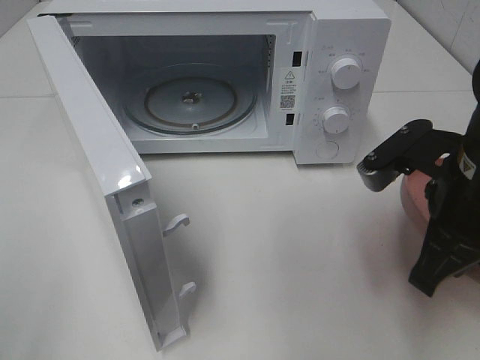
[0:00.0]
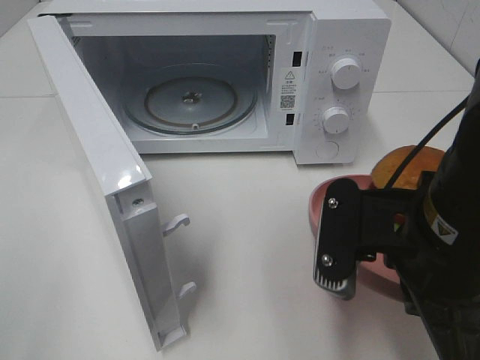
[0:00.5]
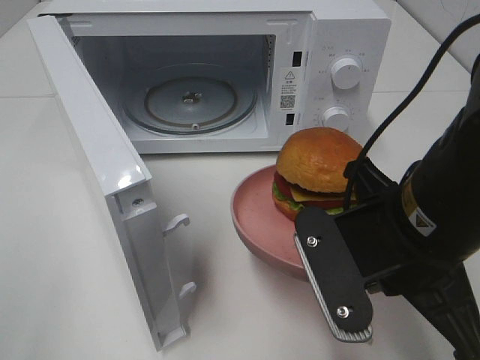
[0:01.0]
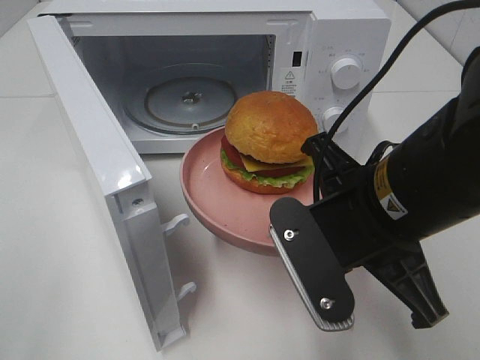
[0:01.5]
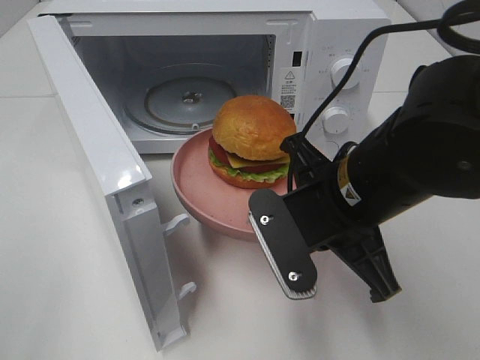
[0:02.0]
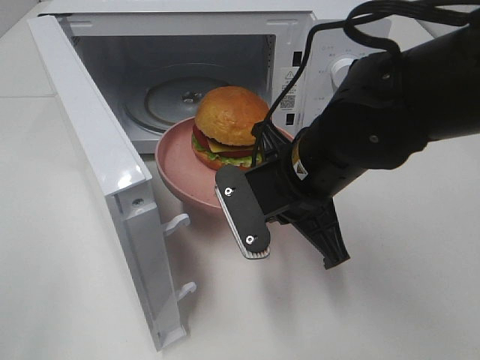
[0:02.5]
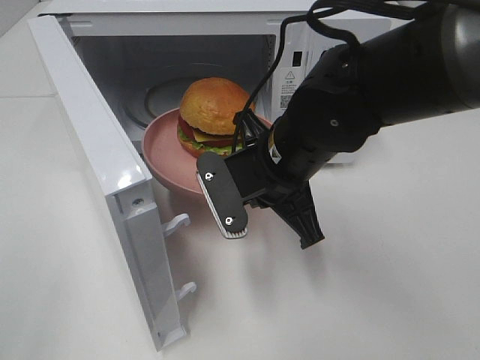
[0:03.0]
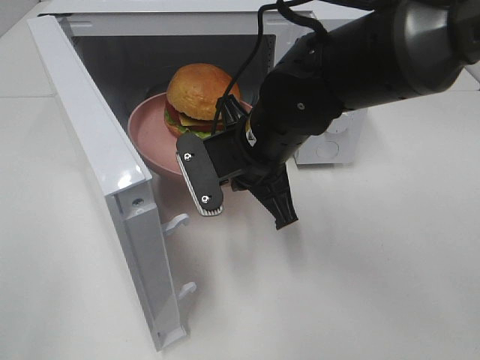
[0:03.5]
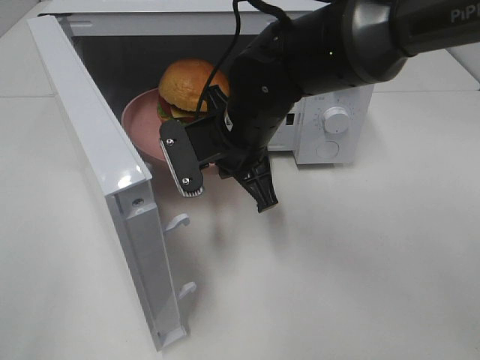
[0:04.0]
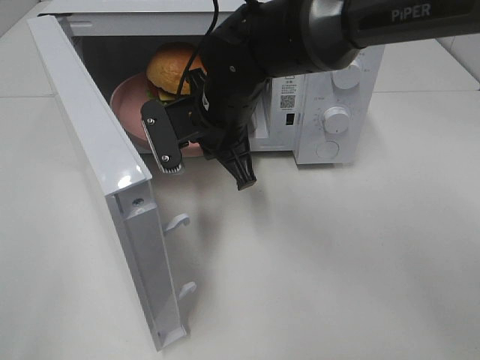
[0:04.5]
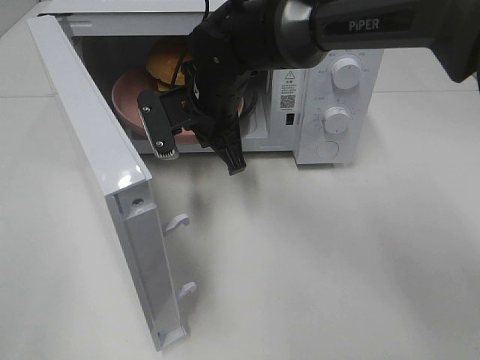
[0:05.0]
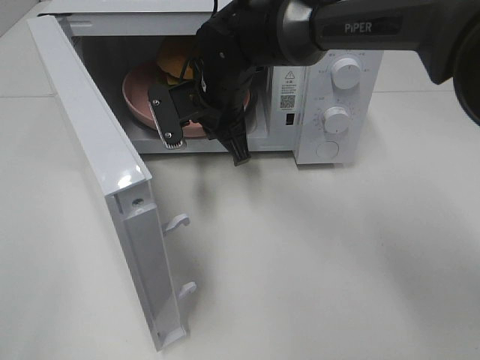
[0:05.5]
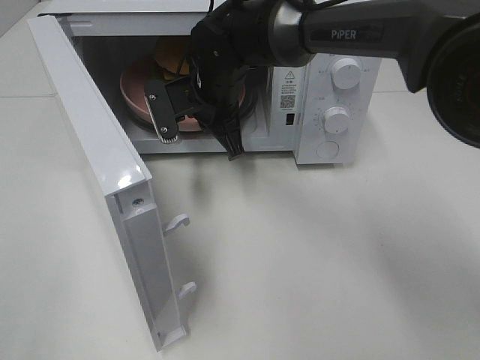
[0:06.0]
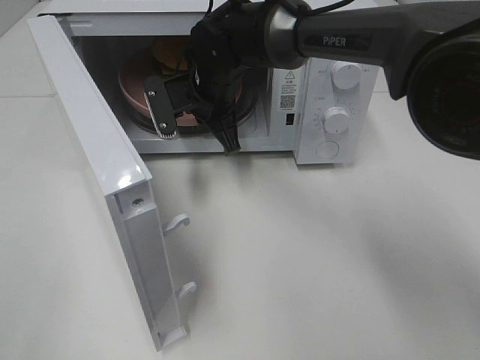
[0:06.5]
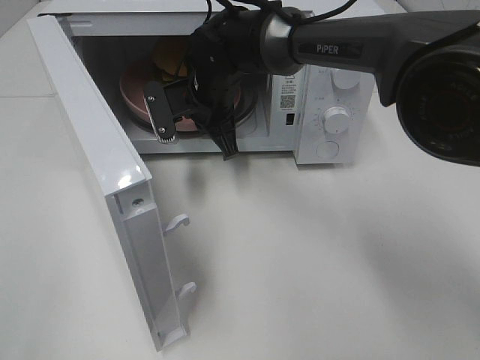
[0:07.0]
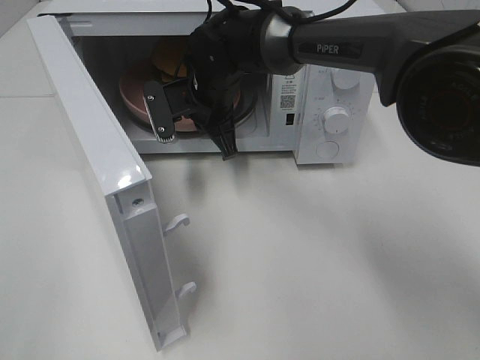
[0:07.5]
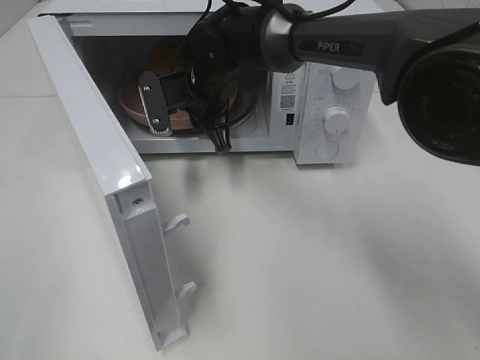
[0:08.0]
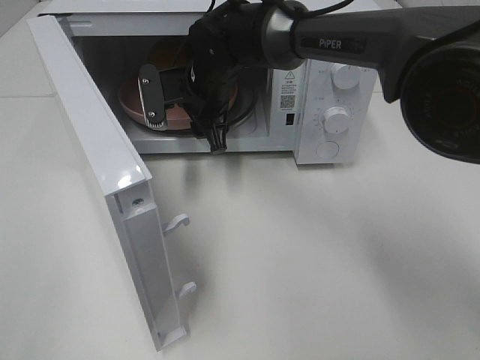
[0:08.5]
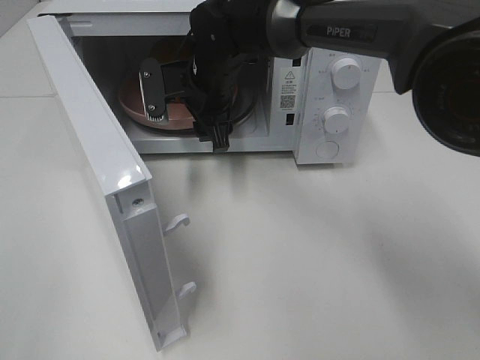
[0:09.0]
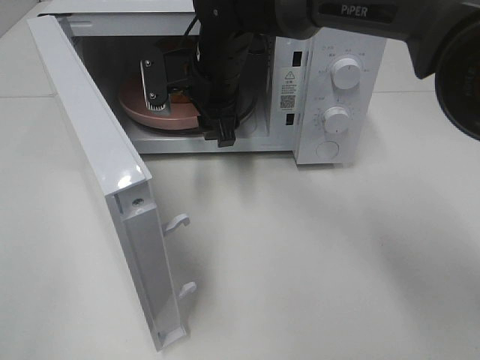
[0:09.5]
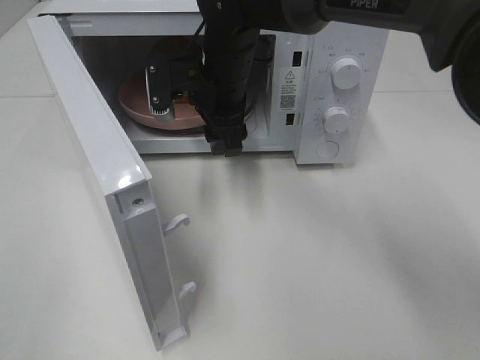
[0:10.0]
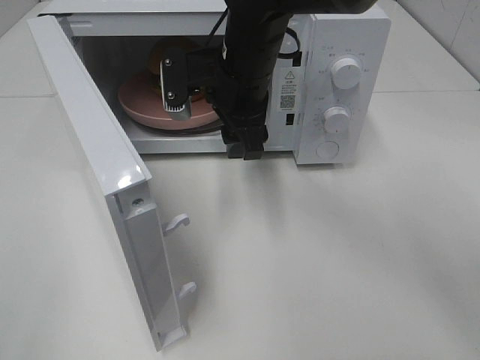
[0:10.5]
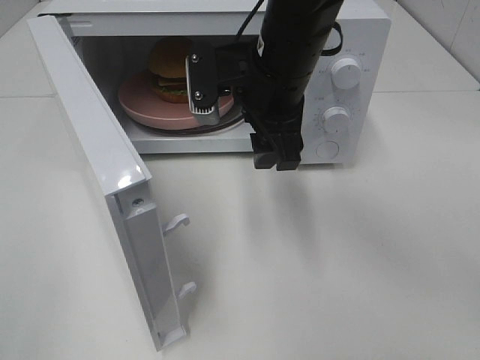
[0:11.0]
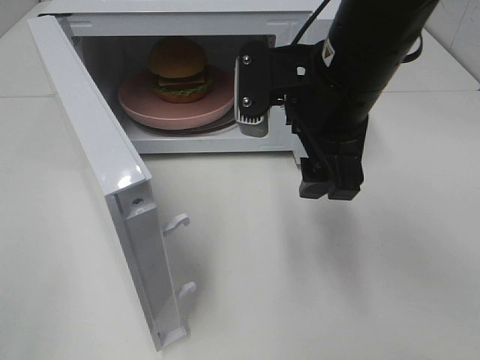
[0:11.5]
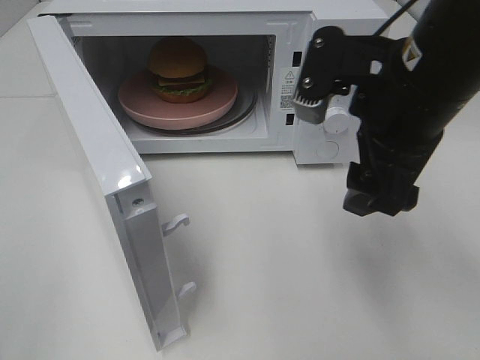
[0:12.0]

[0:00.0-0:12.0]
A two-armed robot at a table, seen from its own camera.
Task of the whole recording: Heat the burger.
Step, 0.0 to 8.0 s: Right hand: place the plate in the microwave.
0.0 to 2.0 s: The right gripper moves to the left, some 10 cm.
2.0 to 4.0 s: The right gripper heads forward and to the left, covering roughly 15 cm.
4.0 to 6.0 s: The right gripper is displaced forward by about 10 cm.
6.0 to 8.0 s: The grippers move only a little.
8.0 to 10.0 s: The right gripper changes place by some 5 cm.
10.0 to 12.0 s: The right gripper shifts some 25 cm to the right, backward and upward.

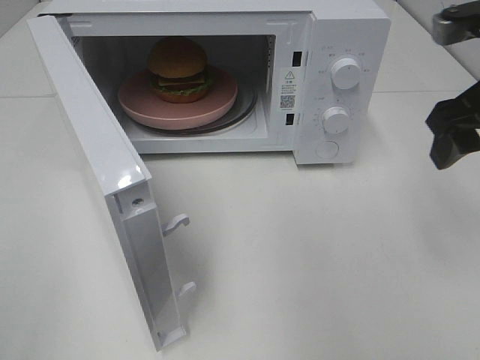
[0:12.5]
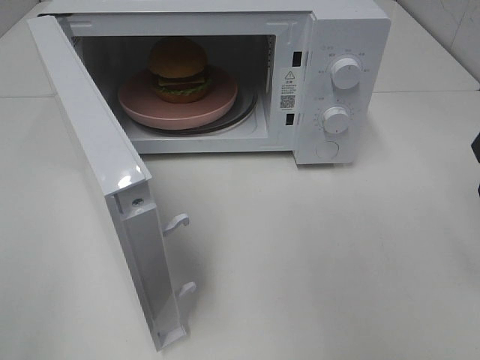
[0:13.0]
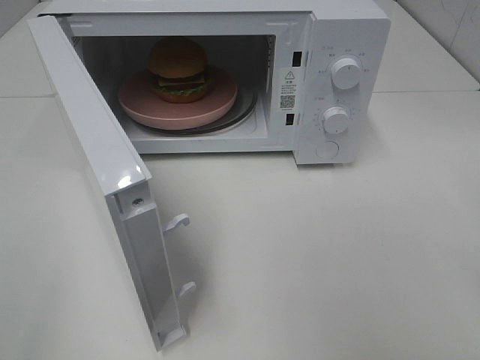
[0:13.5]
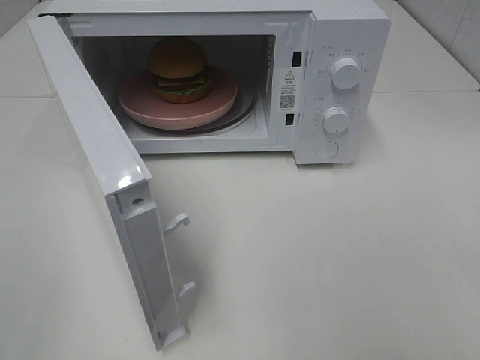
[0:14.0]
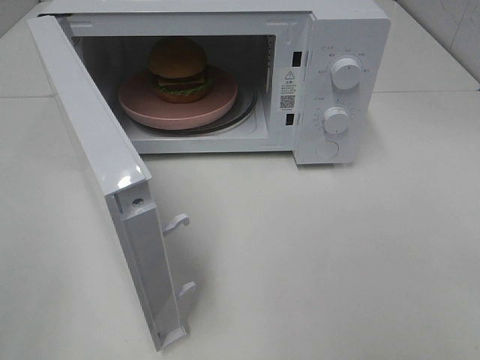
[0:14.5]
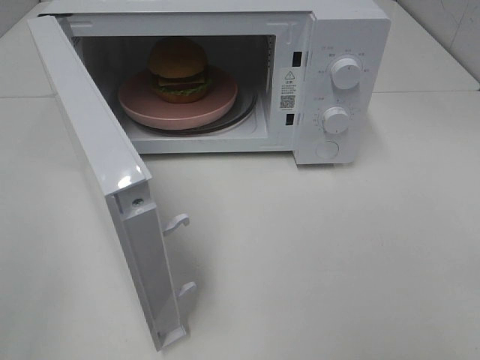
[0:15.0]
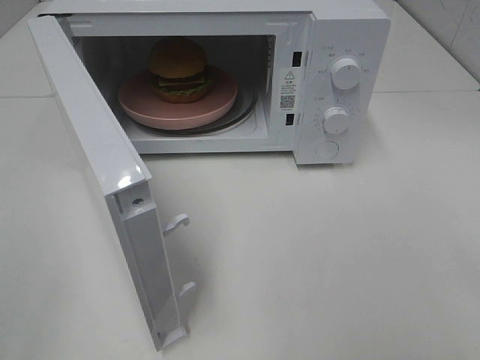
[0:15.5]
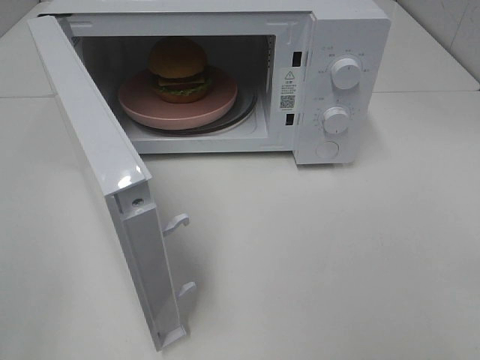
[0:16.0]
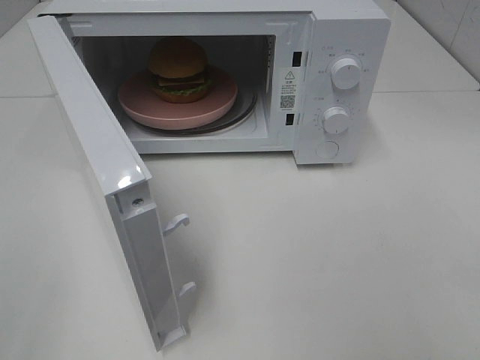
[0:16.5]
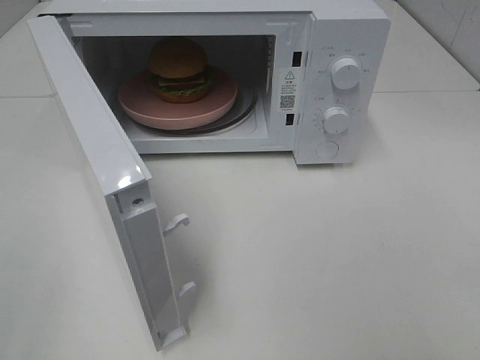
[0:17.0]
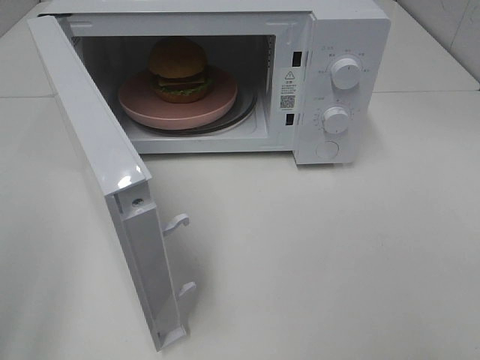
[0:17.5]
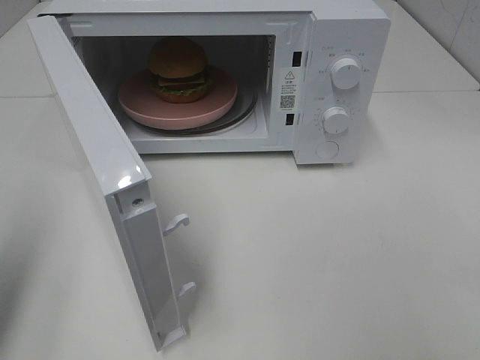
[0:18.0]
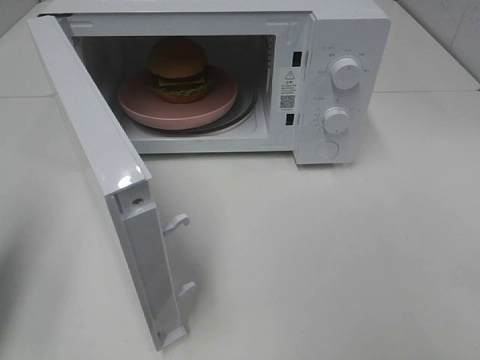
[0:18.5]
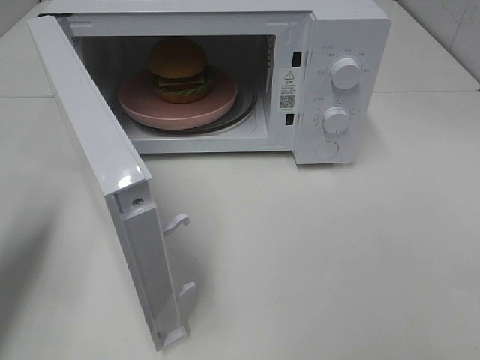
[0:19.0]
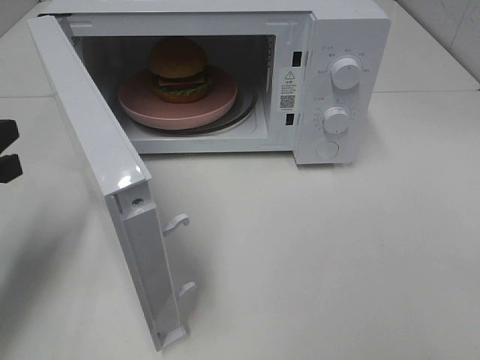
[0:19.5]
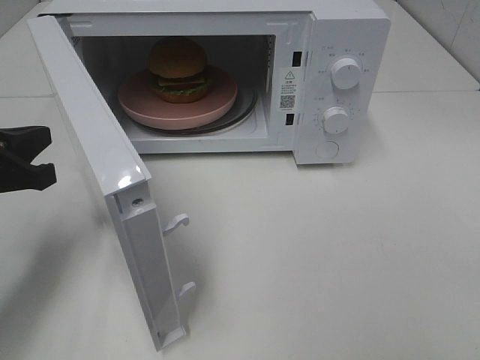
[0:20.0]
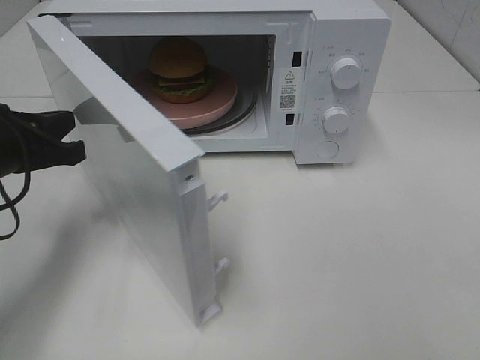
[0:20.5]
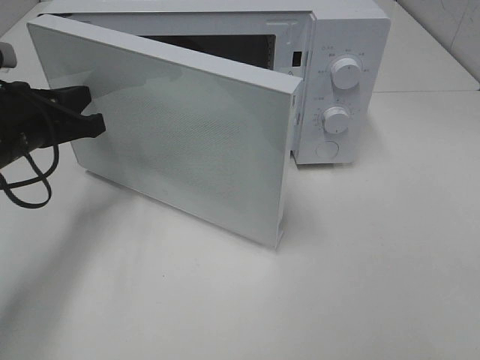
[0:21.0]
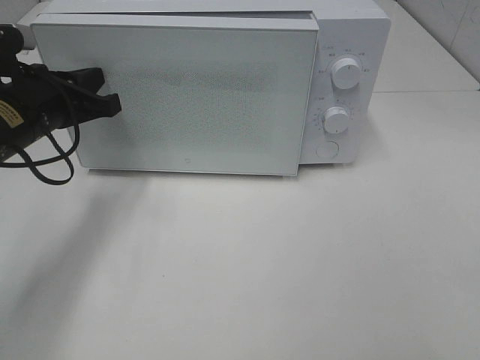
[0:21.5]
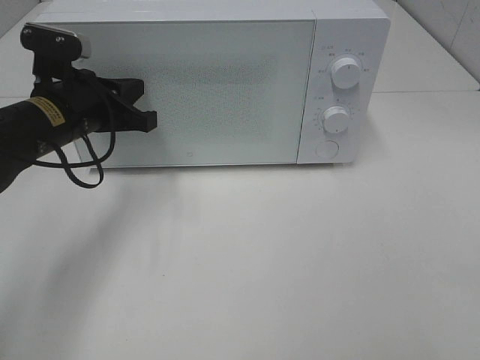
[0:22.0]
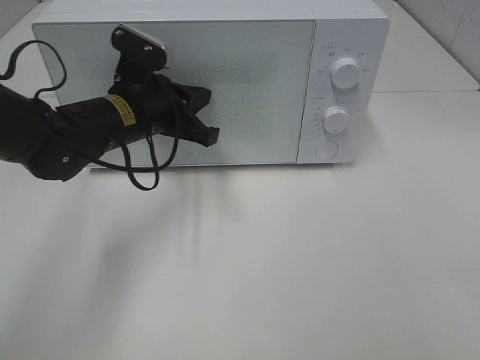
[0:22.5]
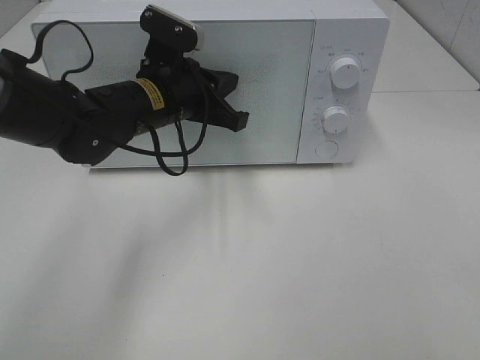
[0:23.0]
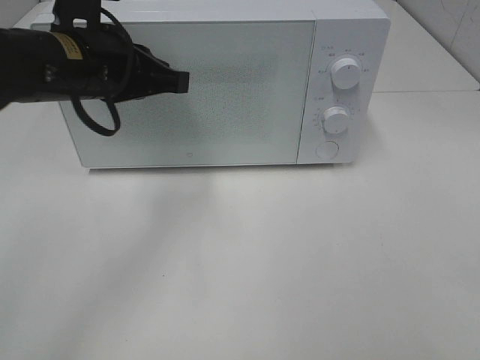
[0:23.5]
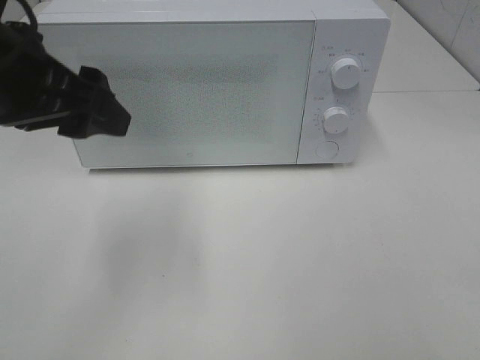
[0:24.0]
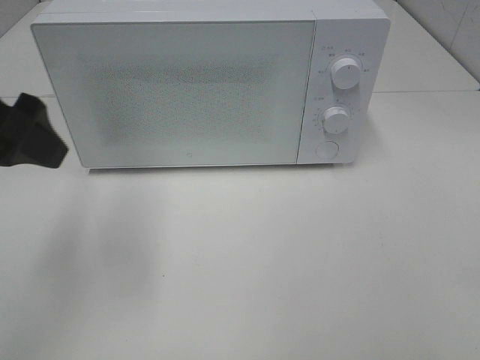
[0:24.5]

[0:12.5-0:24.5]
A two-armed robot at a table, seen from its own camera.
Task of the whole recording: Heat the burger.
Step, 12.5 to 22.0 s: Left hand: close the microwave door.
12.5 to 14.5 s: The right gripper shifts roughly 25 cm backward.
16.5 to 18.5 s: The left gripper goes about 15 cm forward, and closes up.
18.5 to 20.5 s: The left gripper shifts roughly 15 cm forward, downward and to the right.
20.5 to 22.5 s: The left gripper moves to the right and forward, some 15 cm.
22.5 to 24.5 s: The left gripper heads upward, backward and to the left, covering about 25 cm, and opens.

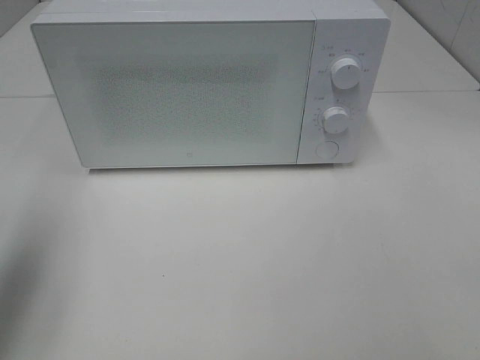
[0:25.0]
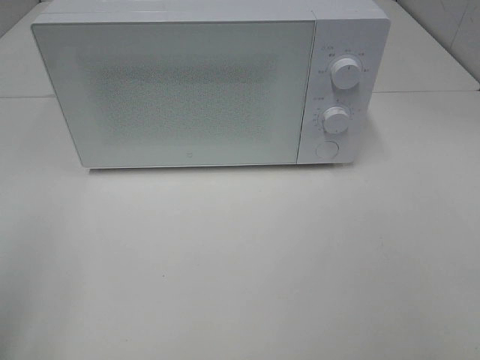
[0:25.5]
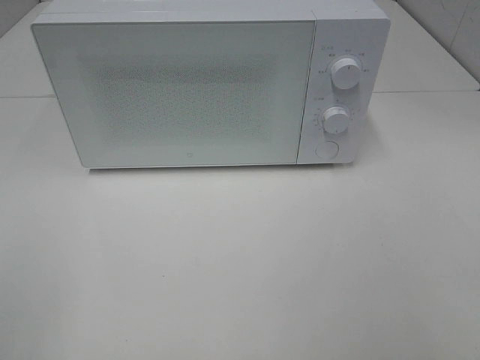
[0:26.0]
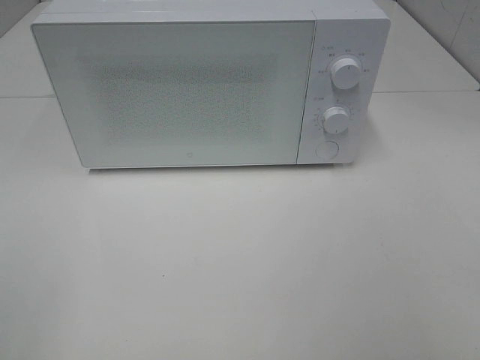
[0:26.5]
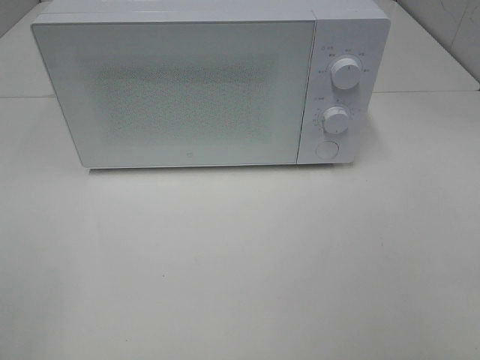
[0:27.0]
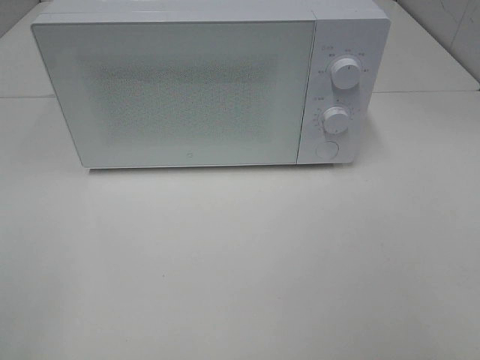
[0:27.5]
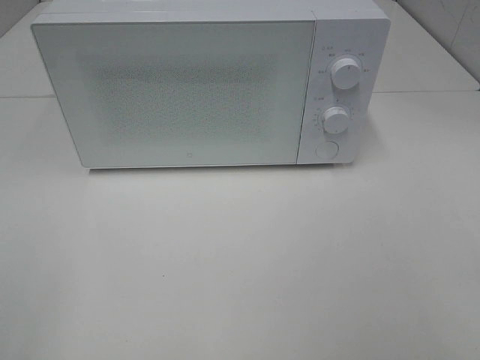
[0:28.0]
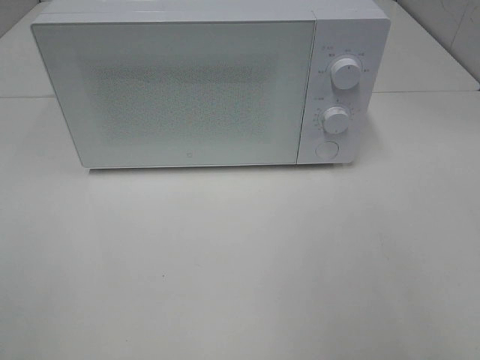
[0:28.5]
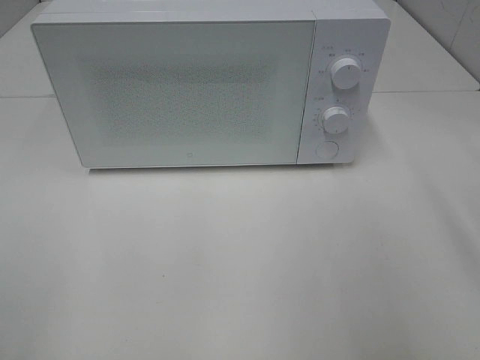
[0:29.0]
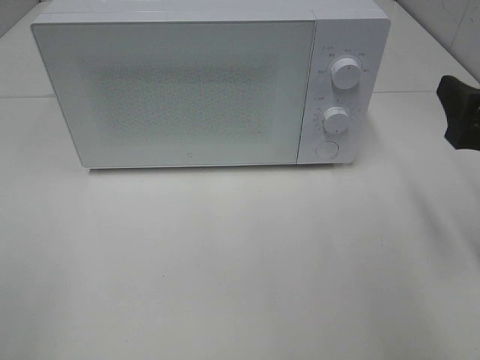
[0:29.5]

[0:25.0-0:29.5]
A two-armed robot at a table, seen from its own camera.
Task of the whole recording: Heat the burger.
25.0 to 27.0 s: The left gripper shifts about 20 cm backward.
27.0 to 29.5 s: The right gripper travels forward by some 20 cm, and opens up.
